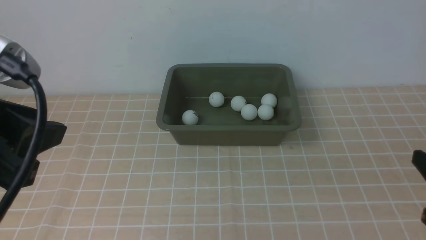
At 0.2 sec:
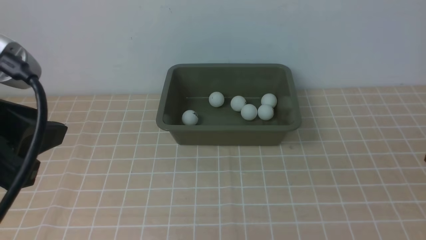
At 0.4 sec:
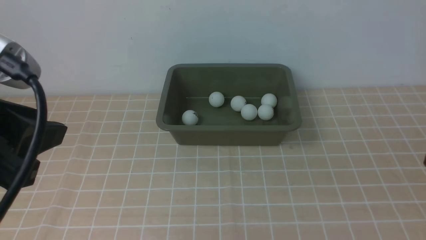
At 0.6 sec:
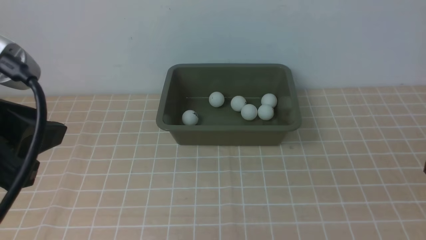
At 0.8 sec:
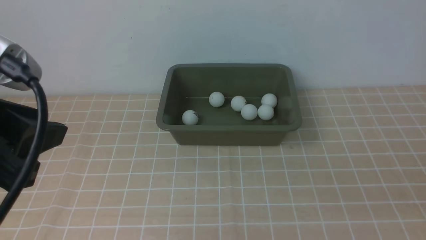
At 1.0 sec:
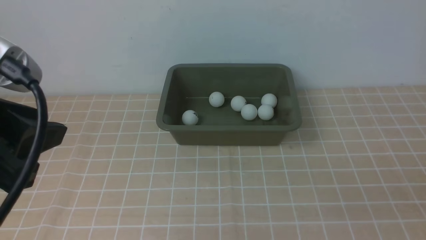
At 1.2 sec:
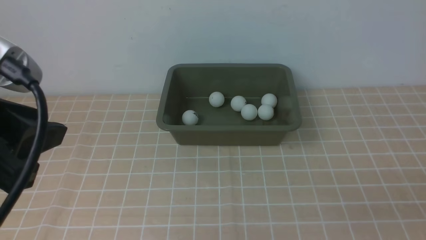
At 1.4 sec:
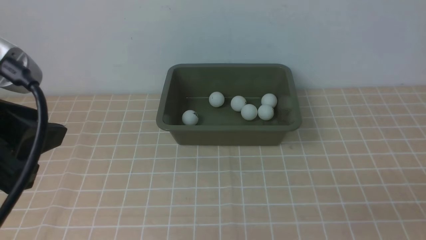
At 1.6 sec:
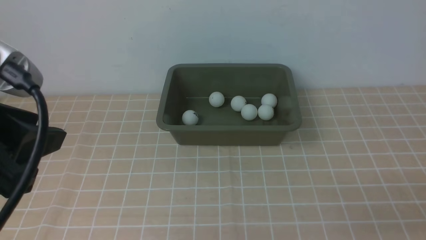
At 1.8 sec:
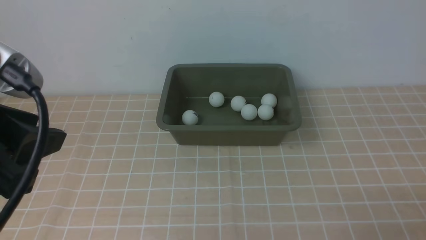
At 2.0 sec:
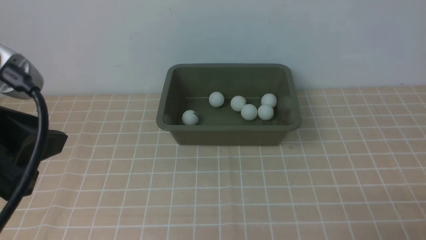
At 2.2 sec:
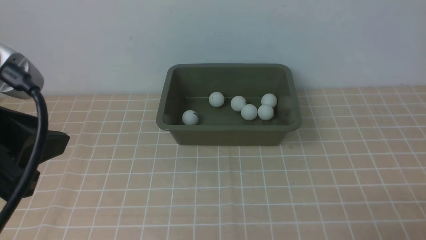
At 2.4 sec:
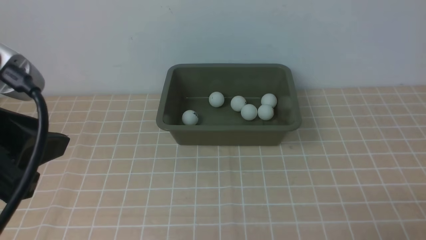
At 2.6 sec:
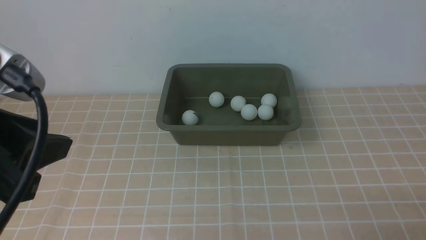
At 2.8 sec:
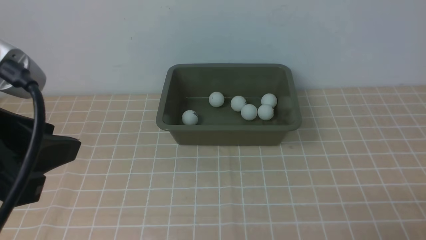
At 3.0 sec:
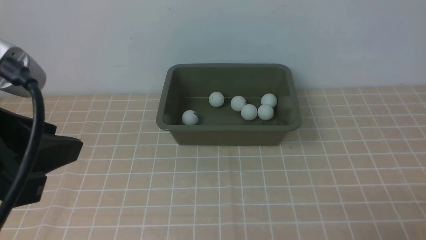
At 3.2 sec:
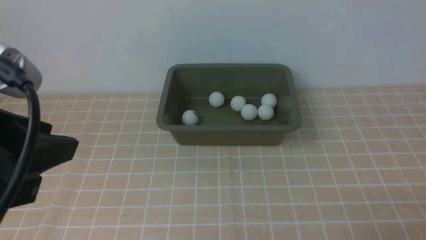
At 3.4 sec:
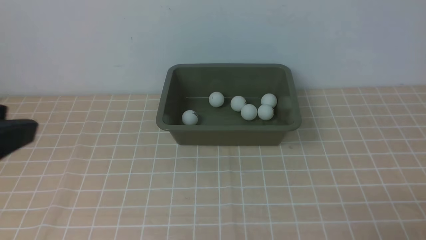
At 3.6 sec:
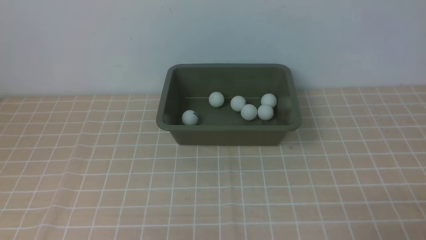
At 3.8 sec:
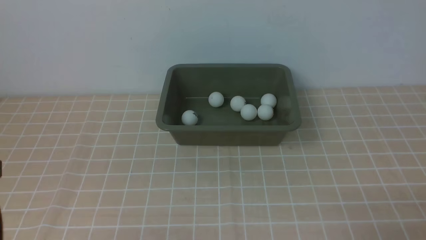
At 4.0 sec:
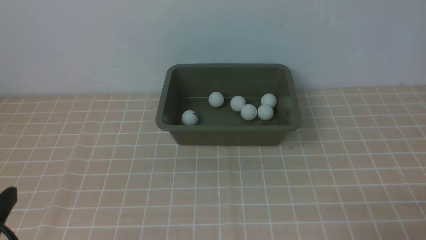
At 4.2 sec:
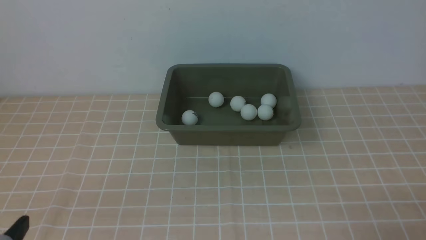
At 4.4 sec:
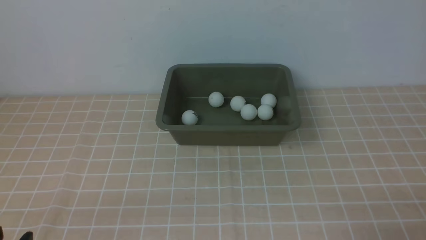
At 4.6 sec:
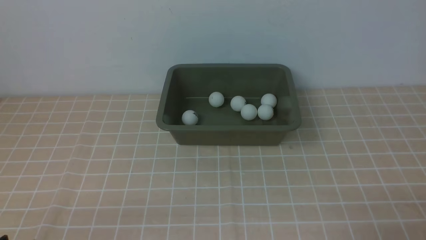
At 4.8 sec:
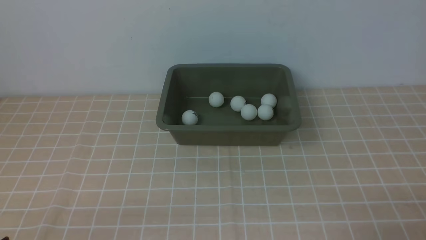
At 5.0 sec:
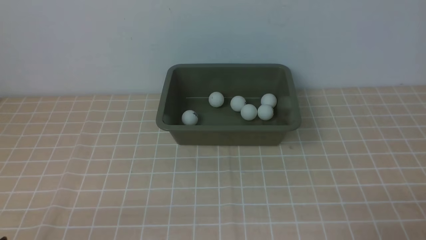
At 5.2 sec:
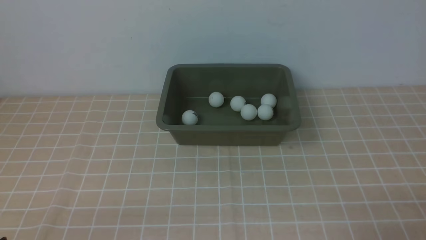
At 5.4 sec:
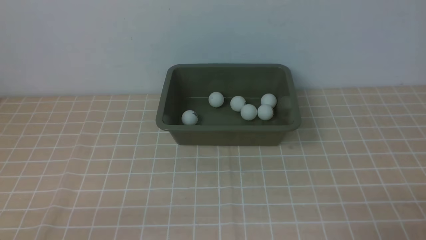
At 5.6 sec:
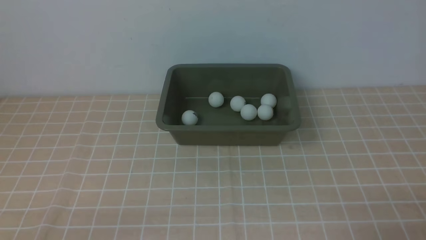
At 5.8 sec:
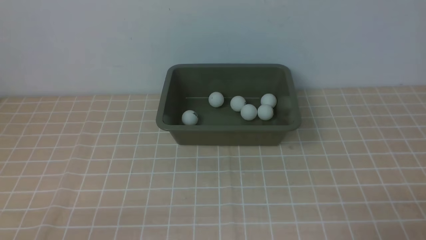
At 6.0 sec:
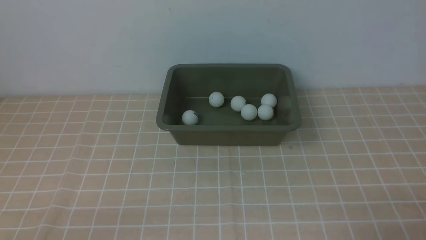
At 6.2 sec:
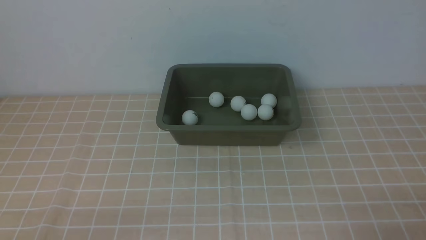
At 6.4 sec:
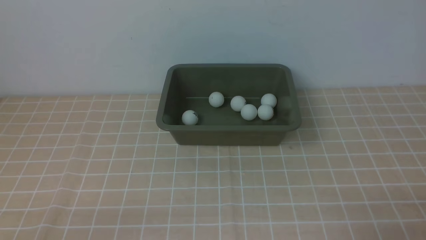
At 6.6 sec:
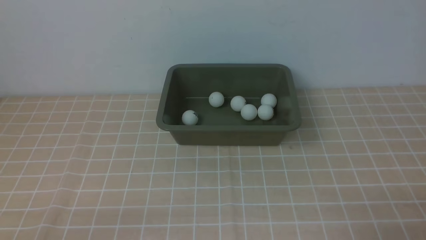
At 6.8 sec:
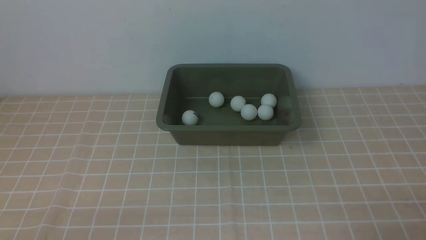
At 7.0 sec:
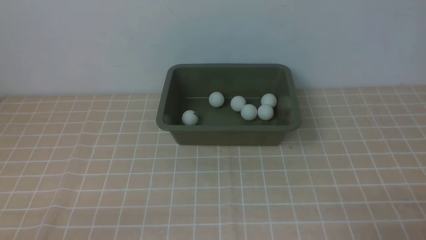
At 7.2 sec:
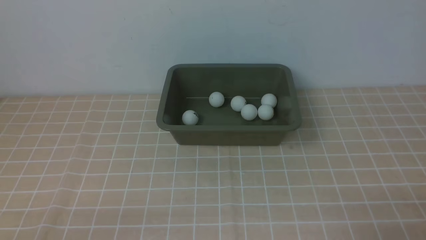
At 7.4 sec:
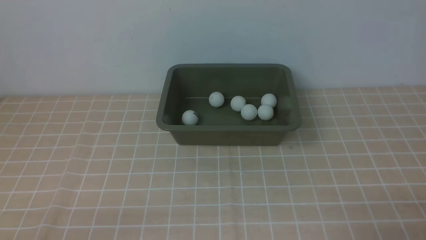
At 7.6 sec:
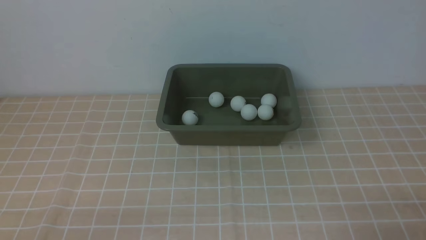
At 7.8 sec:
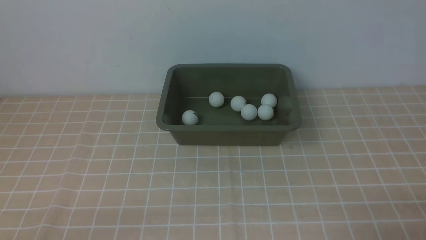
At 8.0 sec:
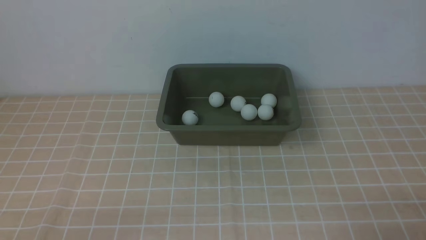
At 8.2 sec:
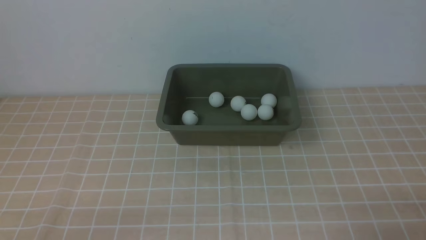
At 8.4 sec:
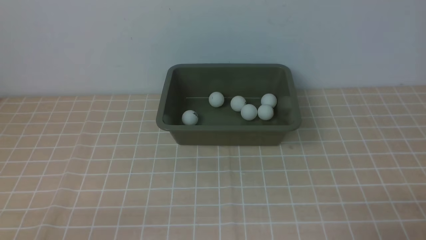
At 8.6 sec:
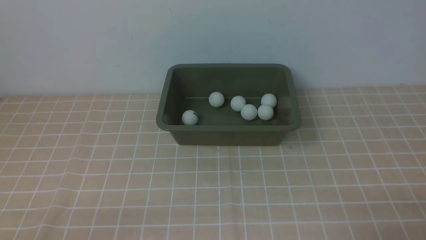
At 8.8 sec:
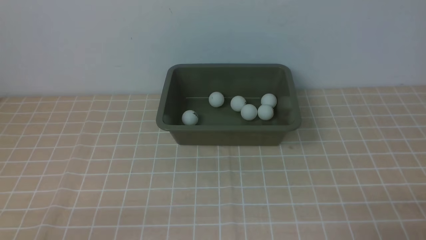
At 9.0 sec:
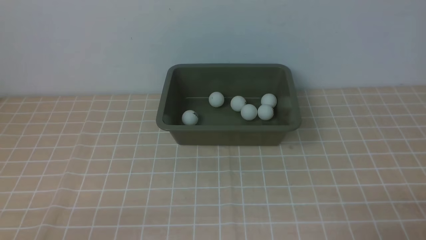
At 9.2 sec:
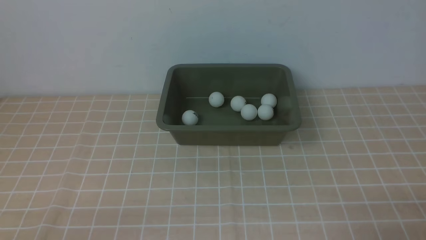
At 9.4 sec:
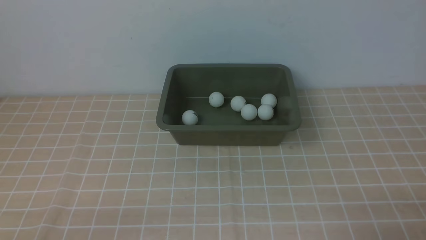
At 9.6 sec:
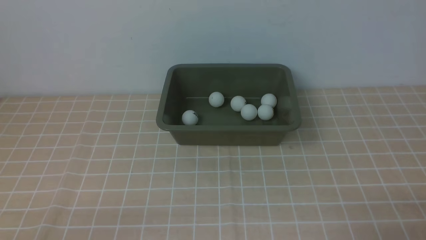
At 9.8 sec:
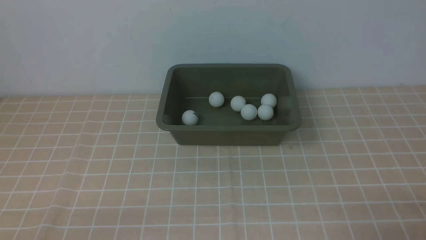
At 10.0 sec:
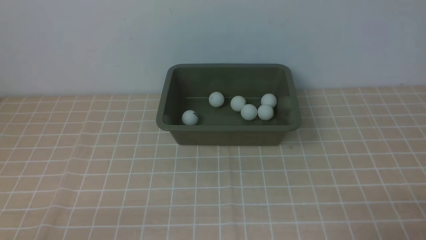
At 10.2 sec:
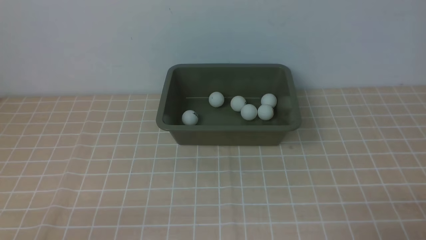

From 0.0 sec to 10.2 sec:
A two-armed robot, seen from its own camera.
From 1.4 sec to 3.0 sec: The grippers make only small movements.
From 3.0 sec to 4.4 sec: The left gripper goes about 20 cm downward.
From 5.8 sec to 10.2 sec: Both grippers stay about where they are.
